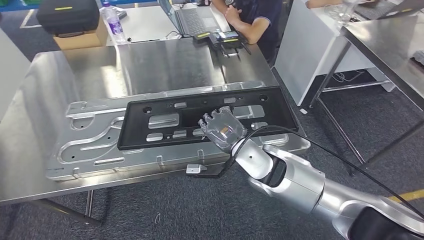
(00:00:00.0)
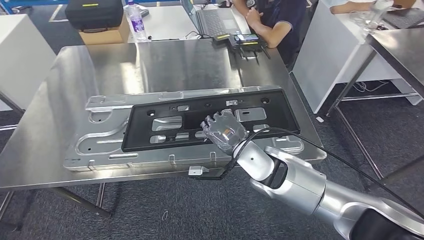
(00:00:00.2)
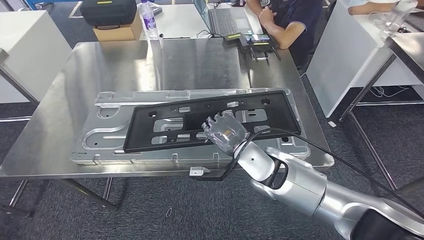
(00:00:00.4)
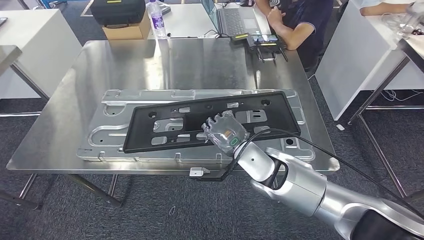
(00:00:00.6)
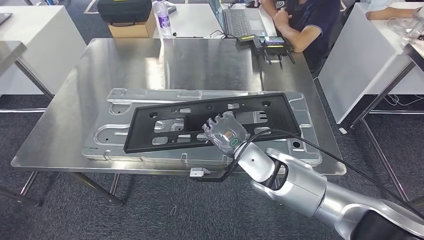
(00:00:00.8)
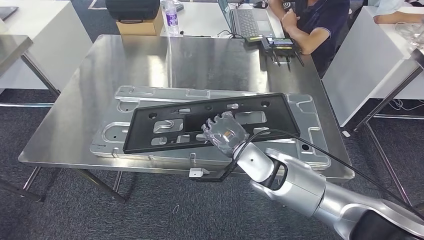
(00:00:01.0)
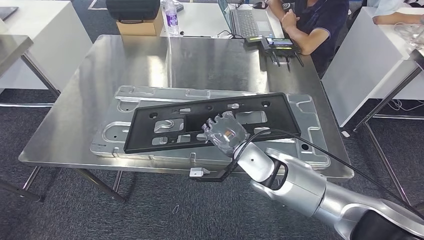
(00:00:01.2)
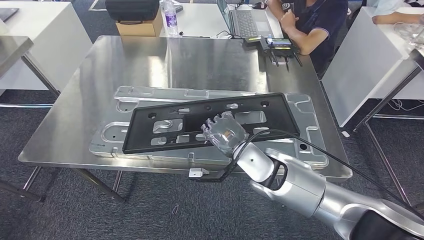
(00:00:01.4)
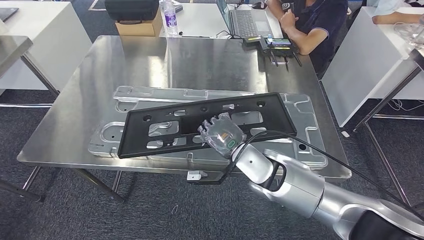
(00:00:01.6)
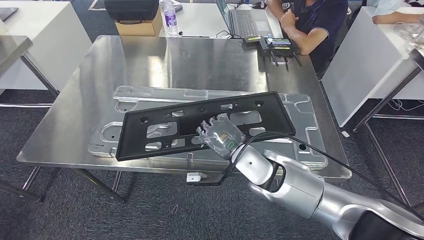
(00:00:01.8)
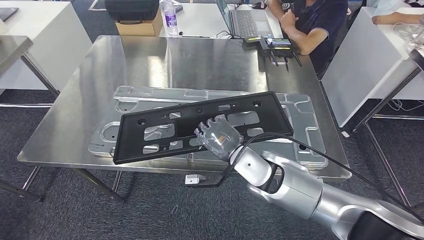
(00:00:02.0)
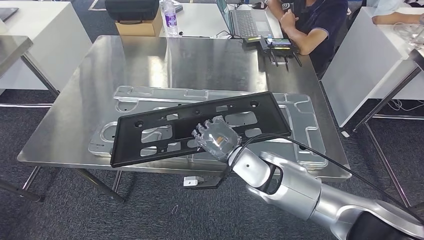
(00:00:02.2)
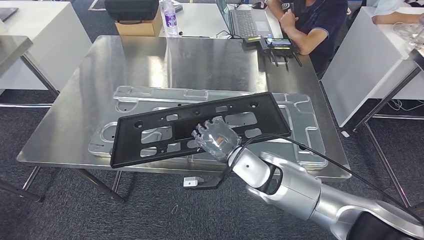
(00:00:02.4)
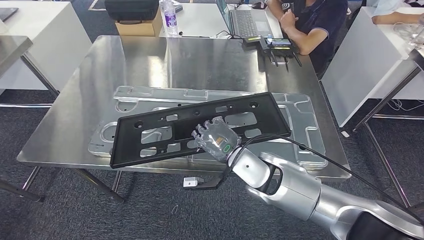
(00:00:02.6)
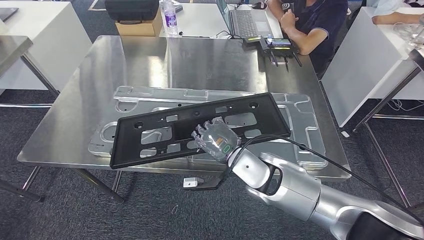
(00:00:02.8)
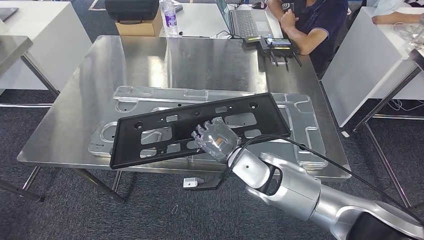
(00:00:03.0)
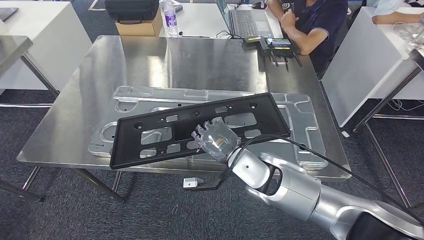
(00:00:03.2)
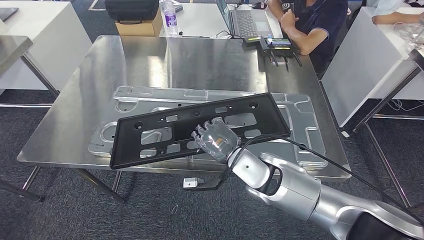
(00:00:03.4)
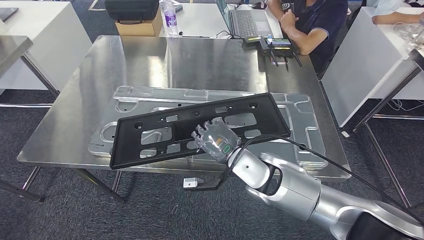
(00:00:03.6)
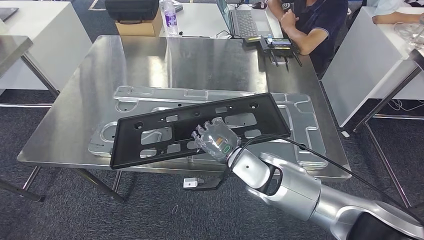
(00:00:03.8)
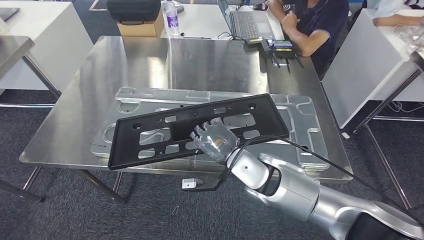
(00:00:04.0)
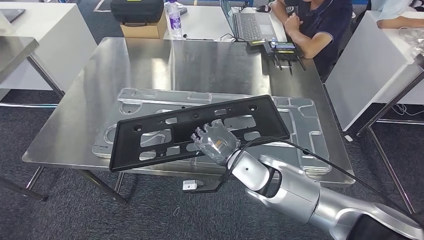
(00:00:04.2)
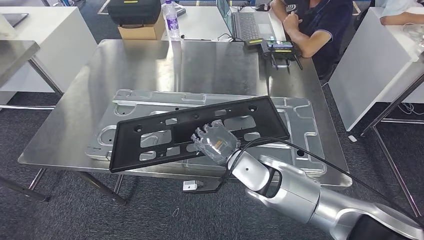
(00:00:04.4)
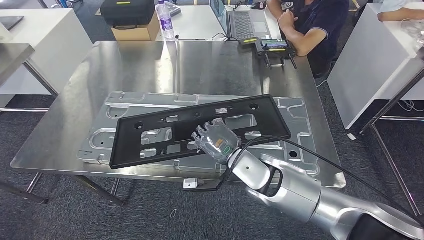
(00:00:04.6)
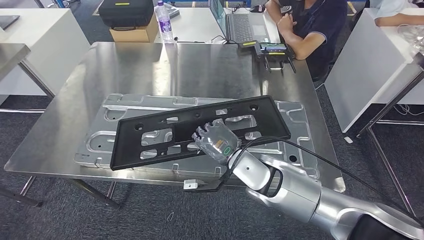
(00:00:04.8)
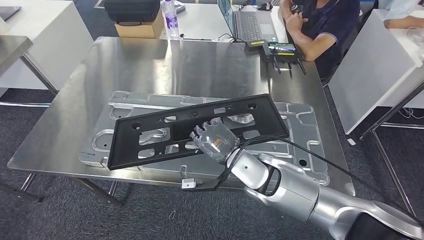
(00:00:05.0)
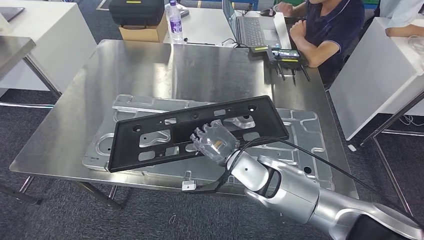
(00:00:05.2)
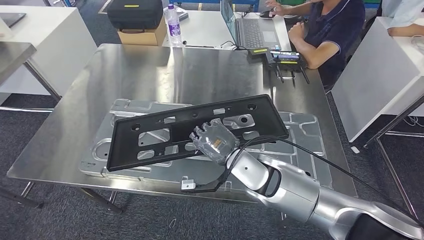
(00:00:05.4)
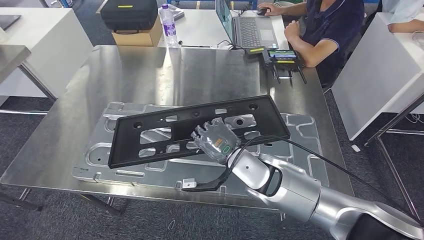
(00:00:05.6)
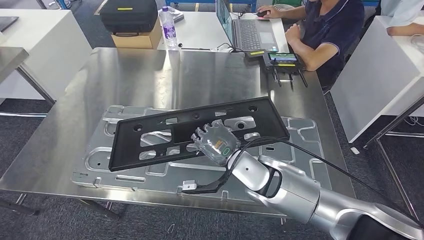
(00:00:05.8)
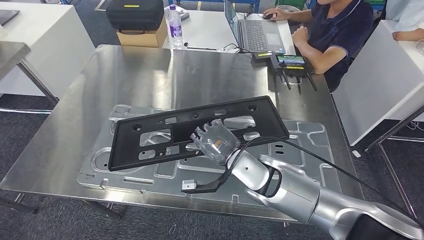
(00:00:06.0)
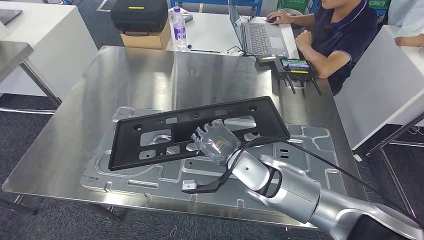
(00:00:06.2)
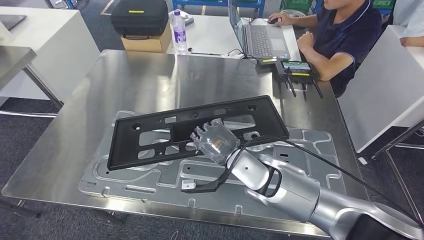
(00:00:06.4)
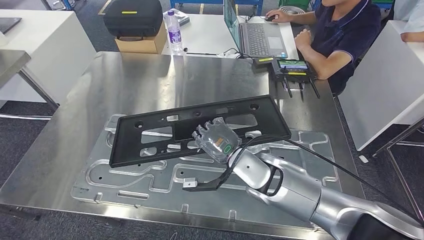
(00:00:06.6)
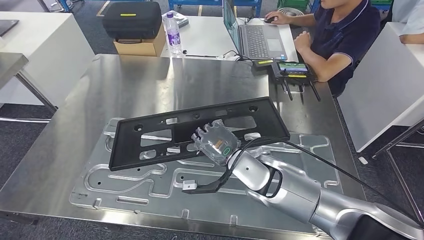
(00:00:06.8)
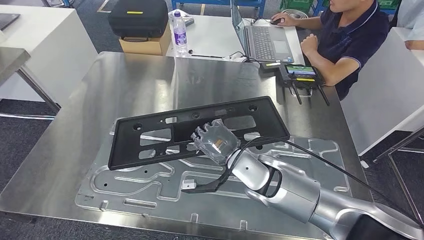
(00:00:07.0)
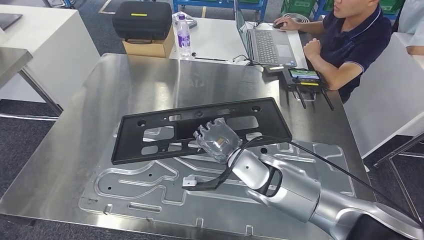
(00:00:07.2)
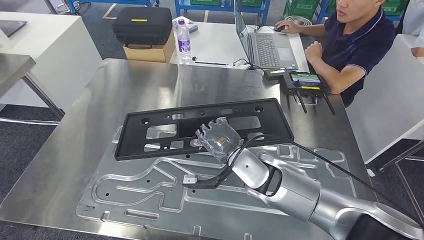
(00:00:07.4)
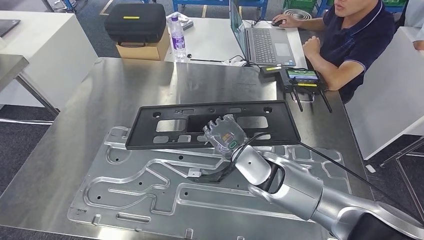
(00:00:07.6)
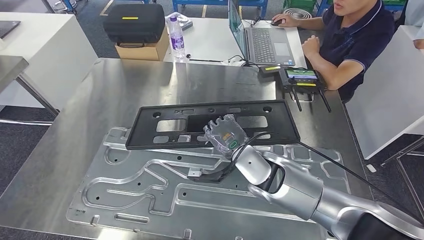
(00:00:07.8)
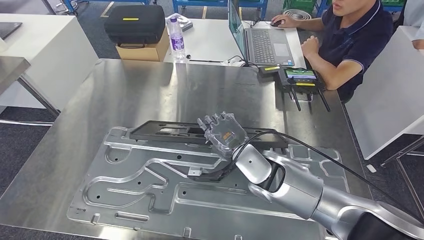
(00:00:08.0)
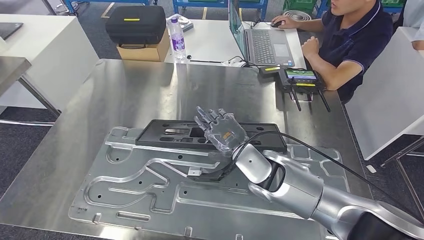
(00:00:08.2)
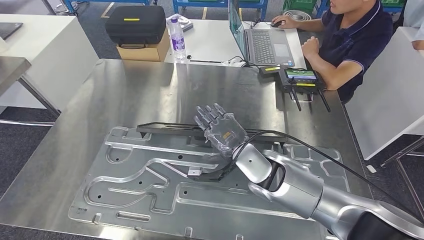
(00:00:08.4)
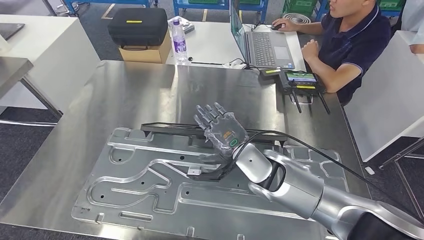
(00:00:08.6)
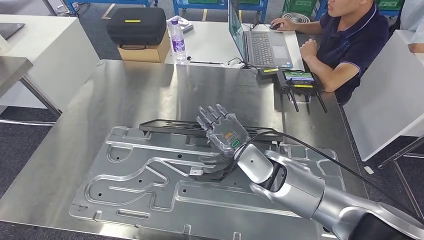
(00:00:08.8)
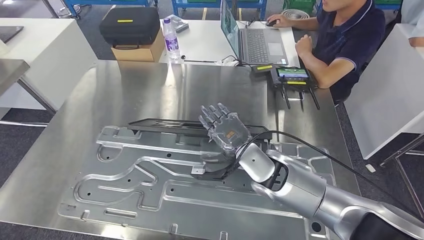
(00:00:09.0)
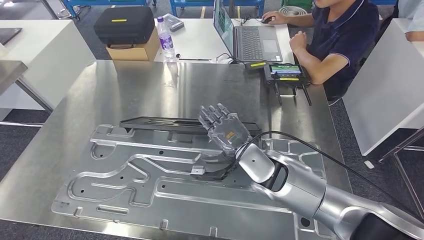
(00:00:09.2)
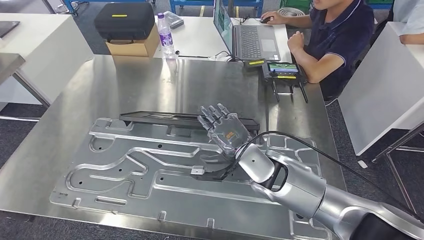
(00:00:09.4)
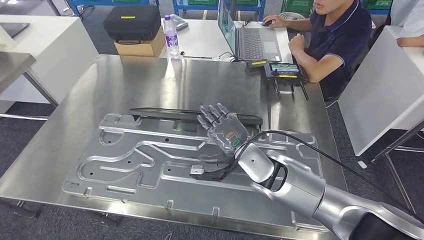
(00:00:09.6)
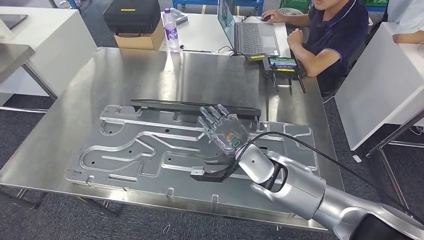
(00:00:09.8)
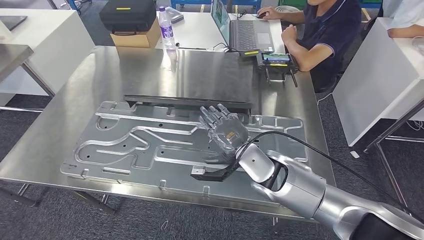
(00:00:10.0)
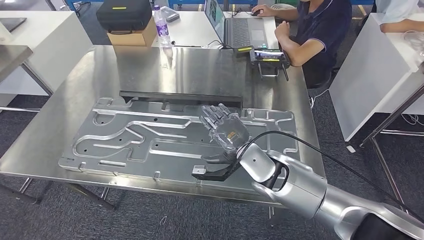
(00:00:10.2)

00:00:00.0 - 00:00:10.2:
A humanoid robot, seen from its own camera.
Step, 00:00:00.0 - 00:00:10.2: Insert the large material into the corresponding slot on the workbench.
00:00:01.4 - 00:00:03.0: The hands stay close to where they were, moving slightly.
